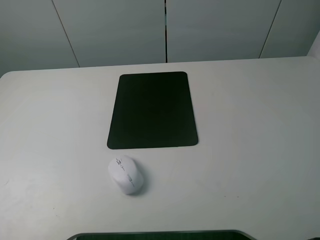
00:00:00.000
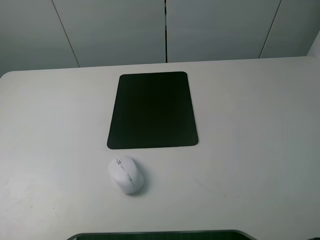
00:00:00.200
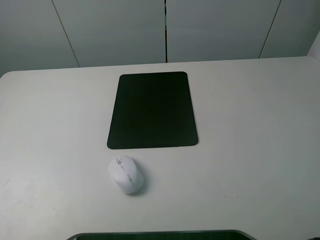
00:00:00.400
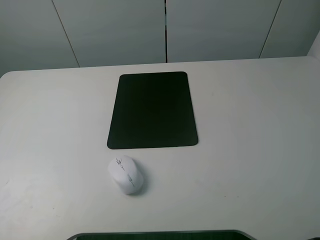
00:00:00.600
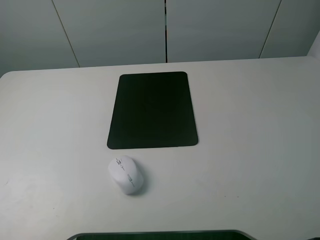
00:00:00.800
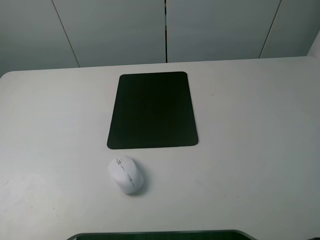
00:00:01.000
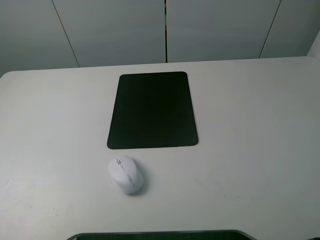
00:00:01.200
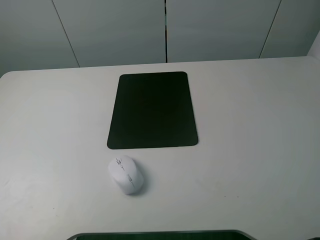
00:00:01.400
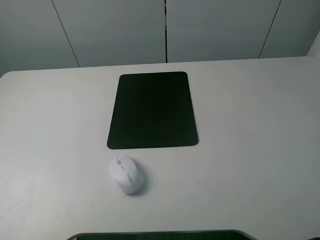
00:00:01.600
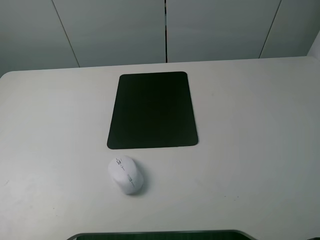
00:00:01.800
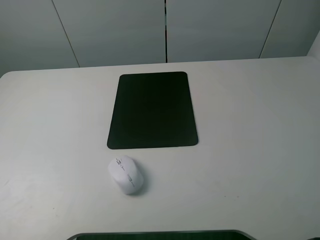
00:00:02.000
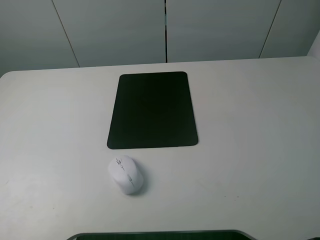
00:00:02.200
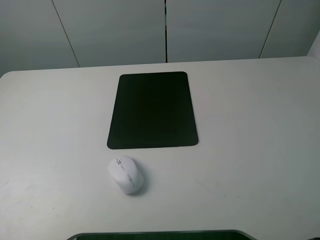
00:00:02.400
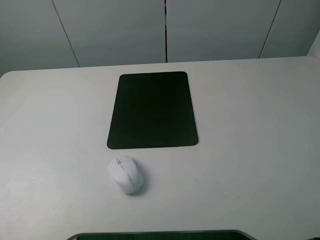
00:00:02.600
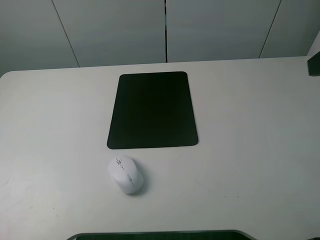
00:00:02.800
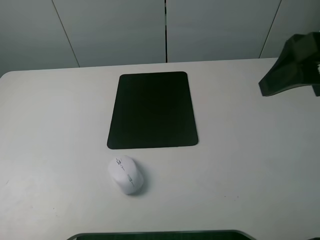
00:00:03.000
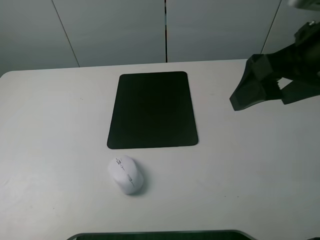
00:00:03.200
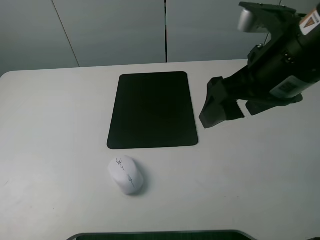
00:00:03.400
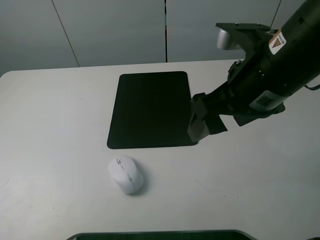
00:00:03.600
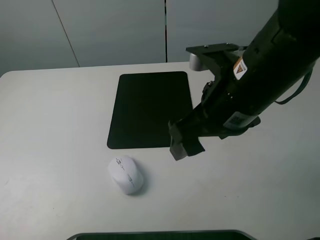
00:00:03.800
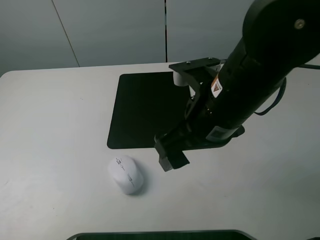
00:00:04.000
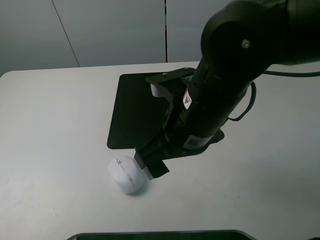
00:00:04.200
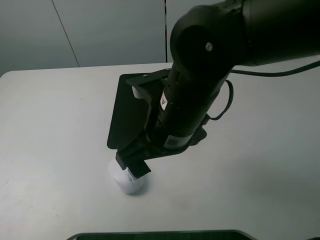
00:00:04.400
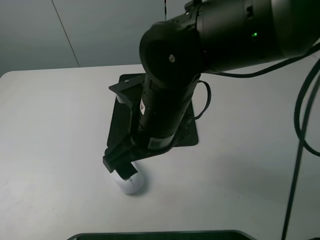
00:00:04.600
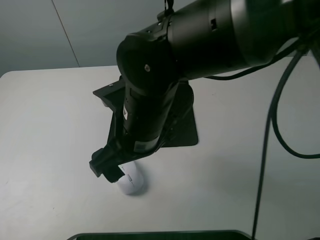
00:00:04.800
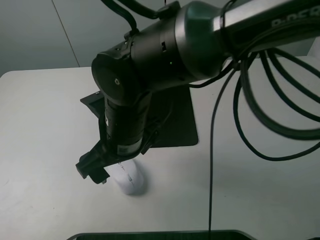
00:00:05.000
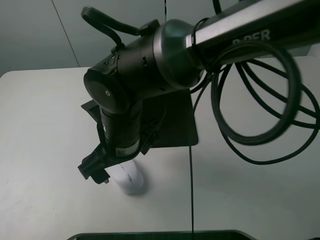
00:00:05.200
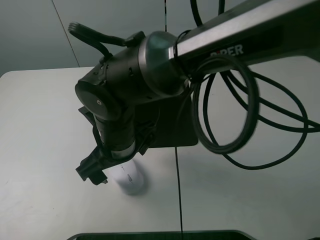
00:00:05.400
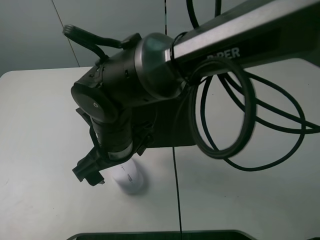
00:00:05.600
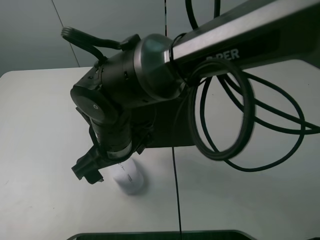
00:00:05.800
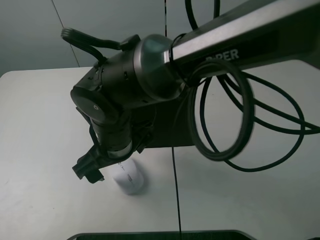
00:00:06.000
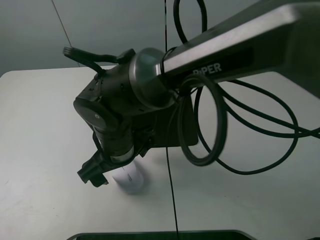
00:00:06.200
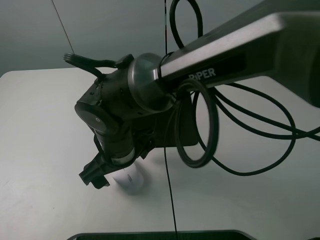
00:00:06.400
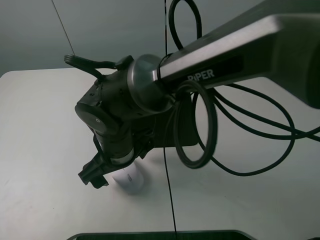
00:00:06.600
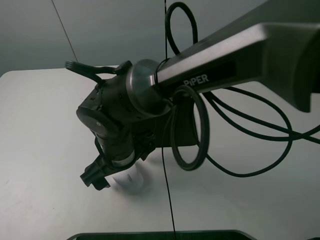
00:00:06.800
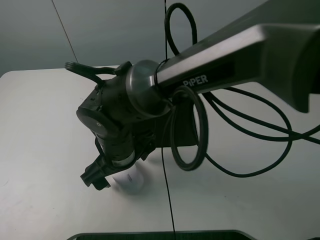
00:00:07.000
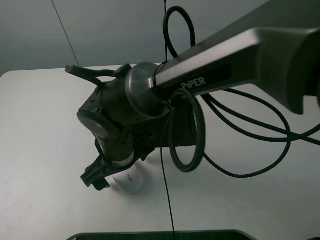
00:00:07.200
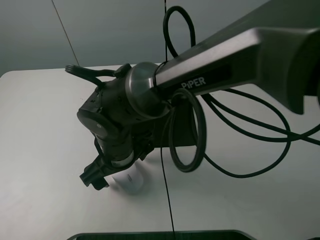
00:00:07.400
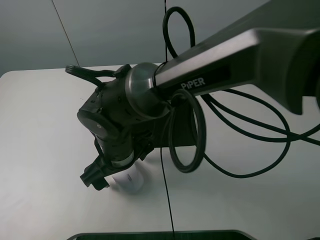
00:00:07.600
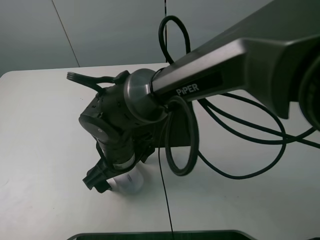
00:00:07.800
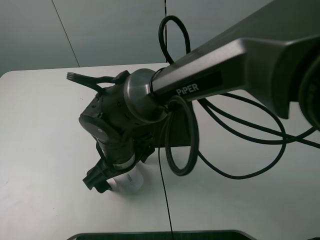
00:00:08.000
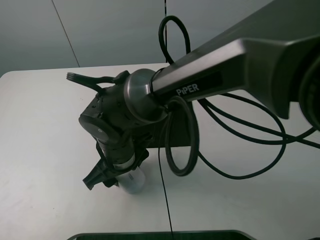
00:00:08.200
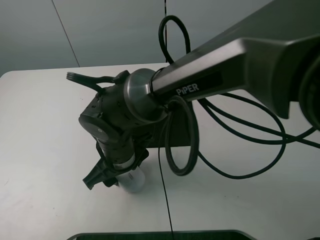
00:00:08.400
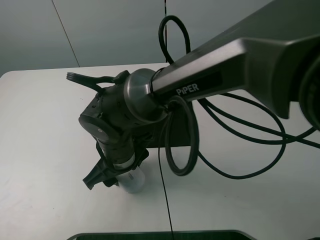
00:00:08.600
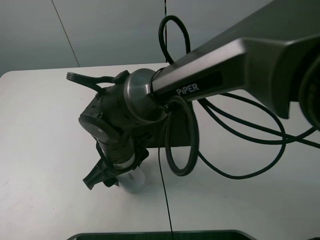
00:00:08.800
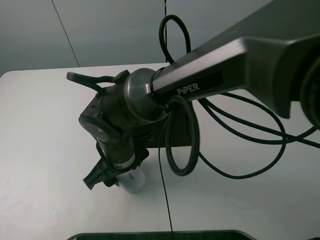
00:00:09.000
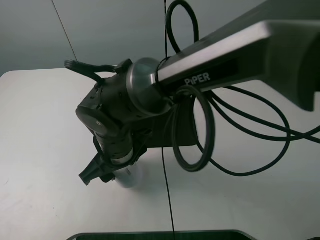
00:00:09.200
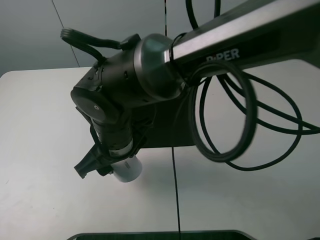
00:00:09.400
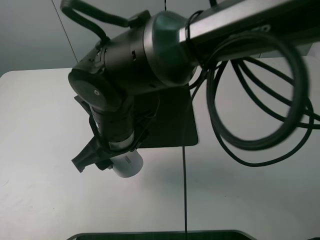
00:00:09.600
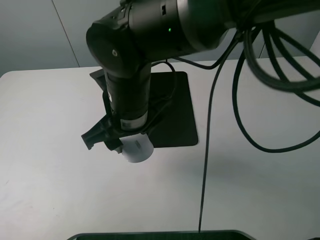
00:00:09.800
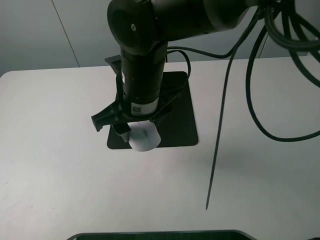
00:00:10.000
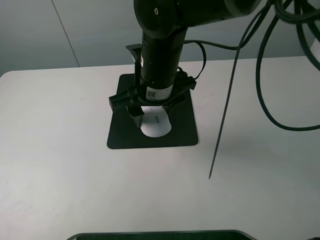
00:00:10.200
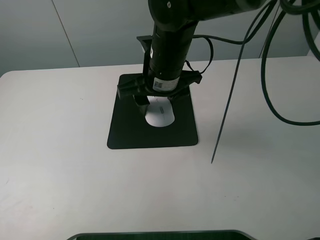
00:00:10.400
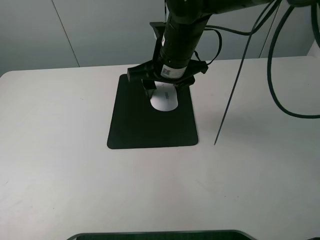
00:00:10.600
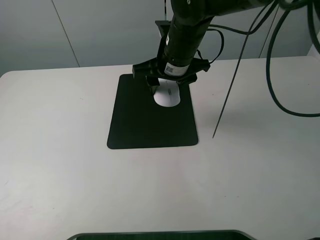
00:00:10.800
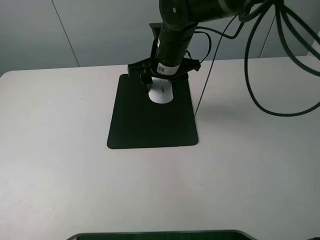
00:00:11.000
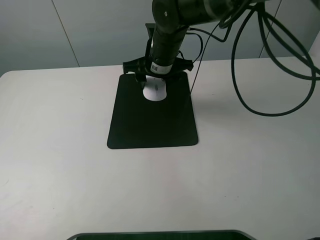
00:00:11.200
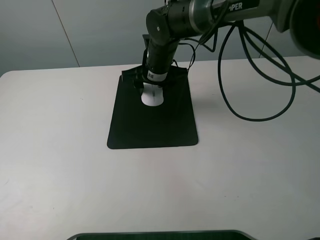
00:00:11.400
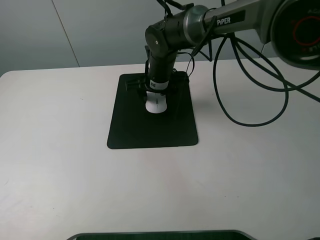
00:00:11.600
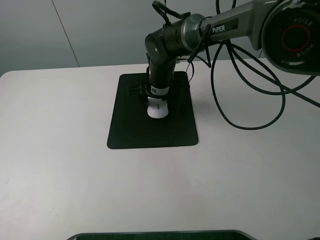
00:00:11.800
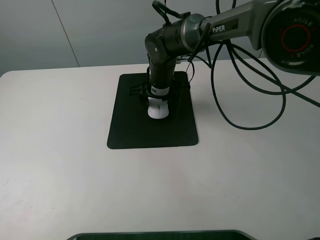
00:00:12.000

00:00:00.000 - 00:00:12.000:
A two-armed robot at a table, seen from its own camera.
Step, 00:00:00.000 - 00:00:08.800: Grasp the mouse with the right gripper.
00:00:00.000 - 00:00:01.600: Neither gripper changes place.
00:00:01.600 - 00:00:03.000: The right gripper goes roughly 20 cm forward and to the left.
00:00:03.000 - 00:00:04.400: The right gripper goes roughly 25 cm to the left and downward.
00:00:04.400 - 00:00:06.000: The right gripper shifts some 10 cm to the left and downward.
00:00:07.600 - 00:00:09.000: The right gripper closes its fingers.
00:00:09.000 - 00:00:10.400: The right gripper shifts some 15 cm upward, forward and to the right.
00:00:10.400 - 00:00:12.000: The right gripper goes approximately 15 cm downward and forward.

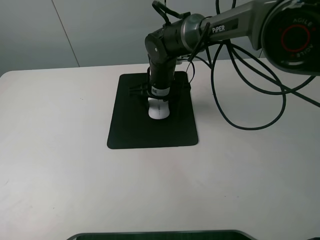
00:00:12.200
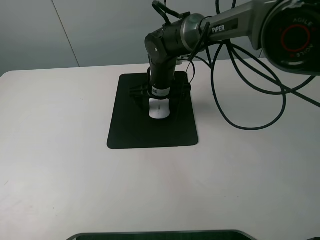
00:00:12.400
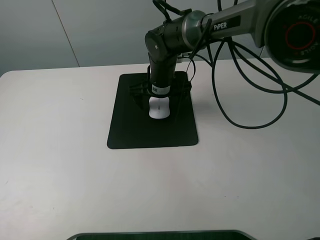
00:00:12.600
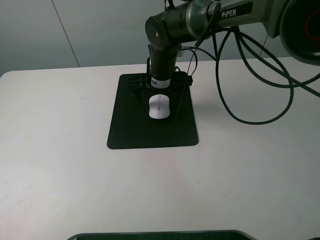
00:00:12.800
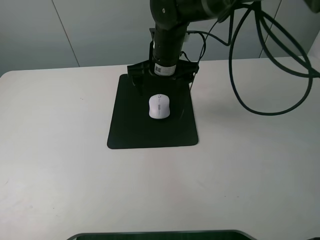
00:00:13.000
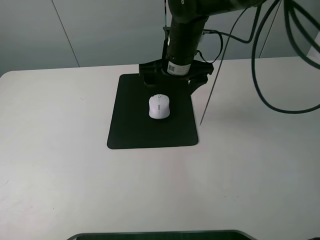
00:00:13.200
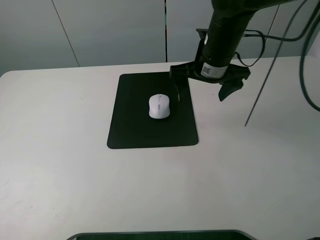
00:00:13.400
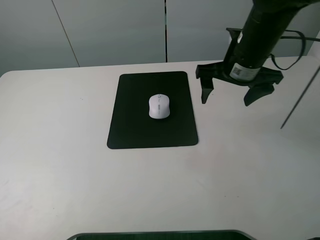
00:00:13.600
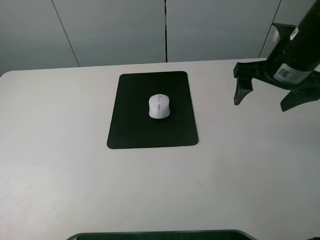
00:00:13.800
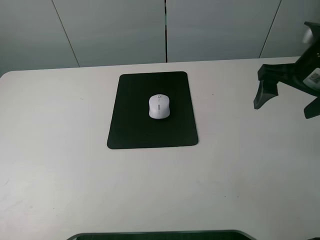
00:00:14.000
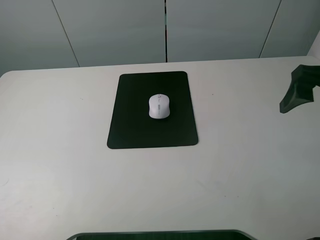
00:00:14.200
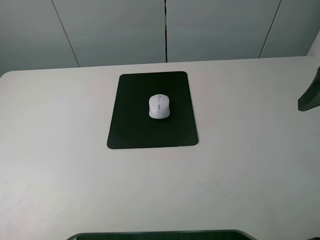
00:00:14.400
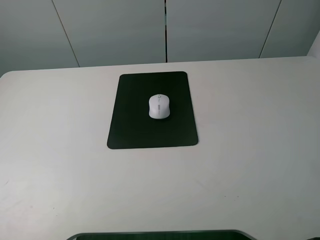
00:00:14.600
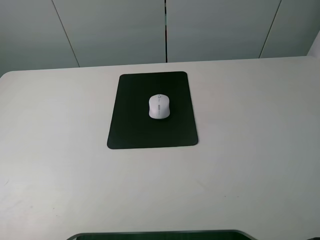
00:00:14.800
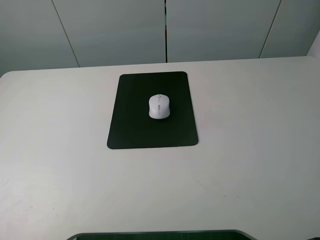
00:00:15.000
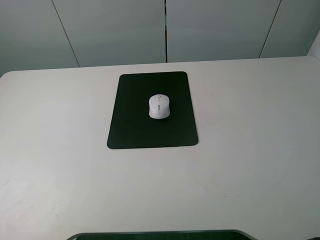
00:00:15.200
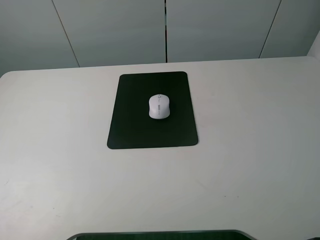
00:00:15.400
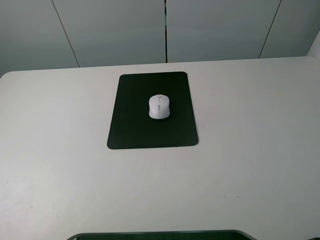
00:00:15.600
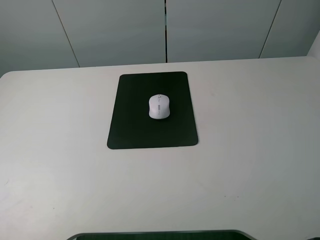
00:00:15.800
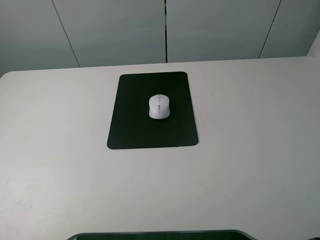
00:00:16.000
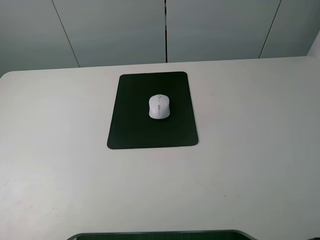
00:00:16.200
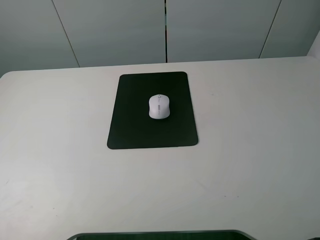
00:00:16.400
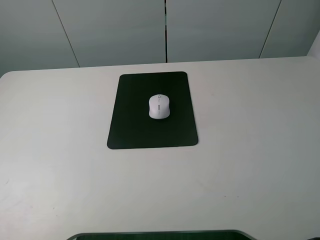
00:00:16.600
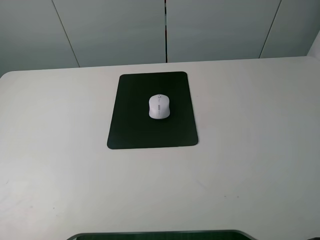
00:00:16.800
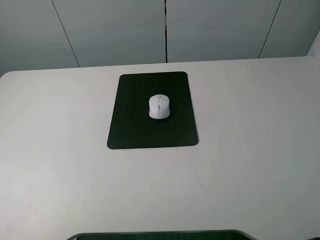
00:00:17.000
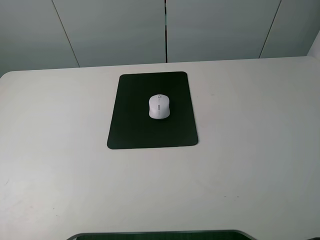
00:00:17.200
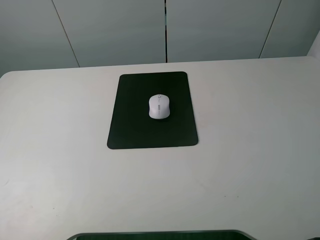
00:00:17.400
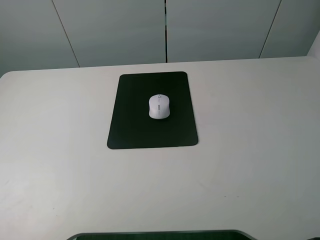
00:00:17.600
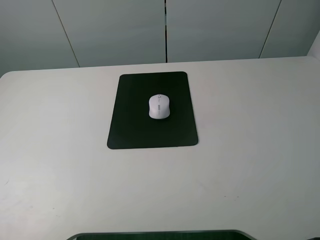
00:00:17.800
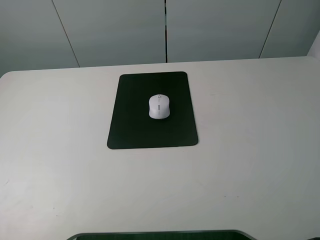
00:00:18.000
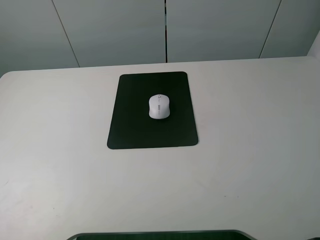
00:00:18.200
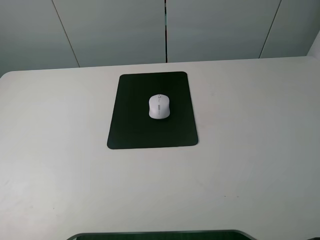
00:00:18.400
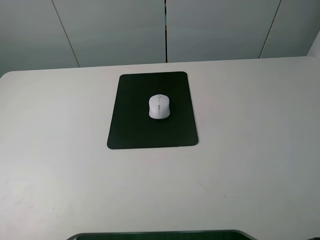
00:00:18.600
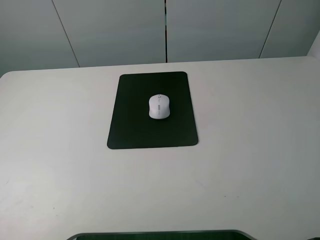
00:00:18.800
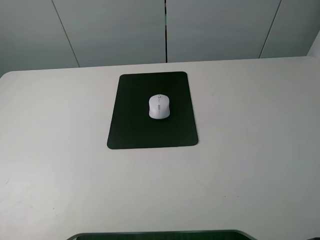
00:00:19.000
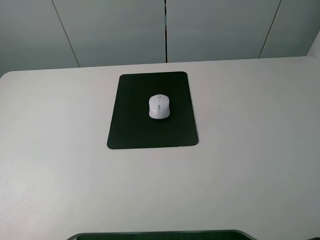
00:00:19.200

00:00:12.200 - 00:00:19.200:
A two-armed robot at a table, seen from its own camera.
00:00:12.200 - 00:00:13.600: The right gripper travels to the right, upward and backward by some 20 cm, and opens its fingers.
00:00:13.600 - 00:00:15.000: The right gripper shifts about 30 cm backward, to the right and upward.
00:00:16.400 - 00:00:19.200: Both grippers stay put.
